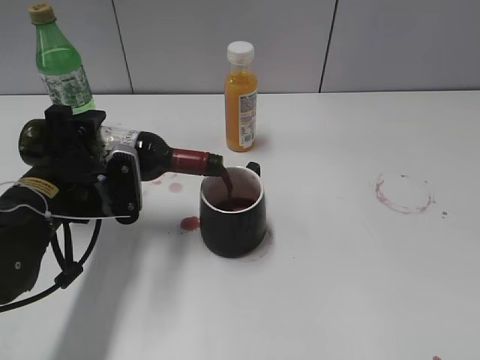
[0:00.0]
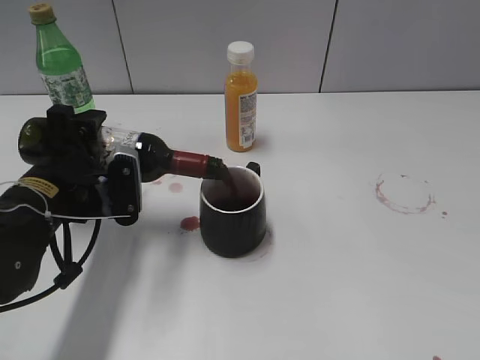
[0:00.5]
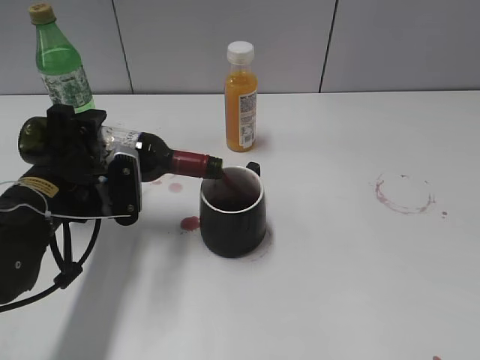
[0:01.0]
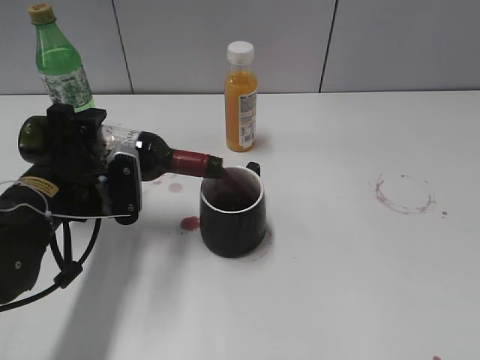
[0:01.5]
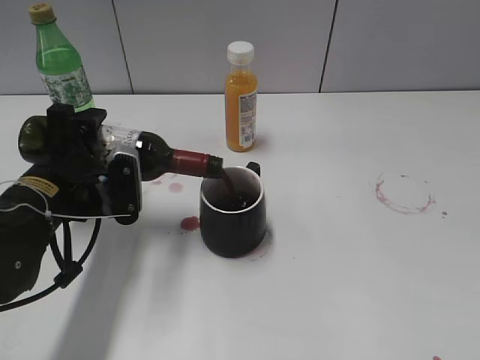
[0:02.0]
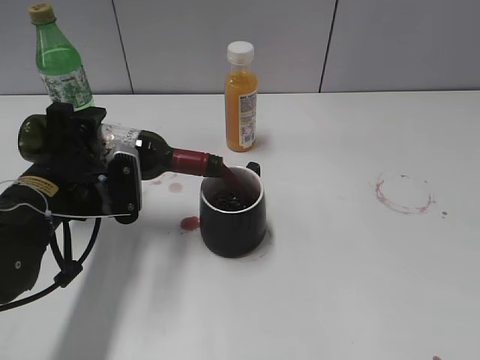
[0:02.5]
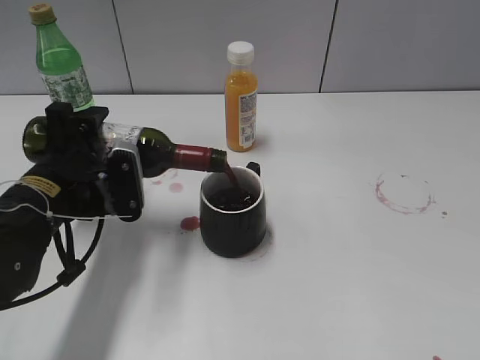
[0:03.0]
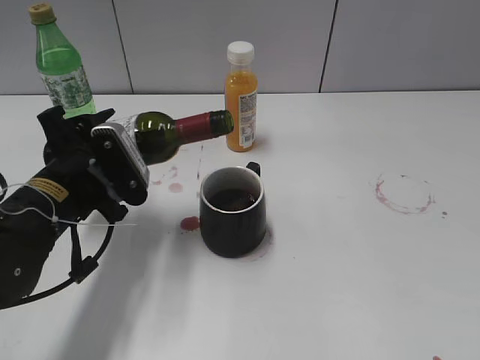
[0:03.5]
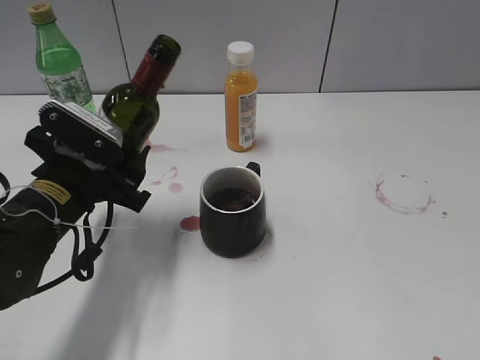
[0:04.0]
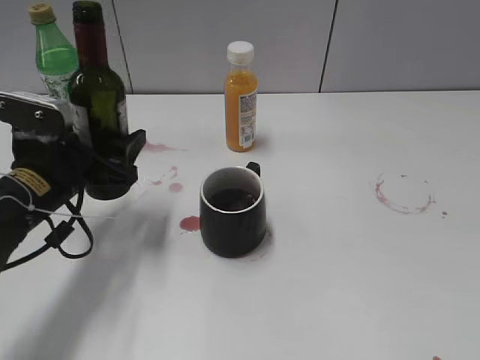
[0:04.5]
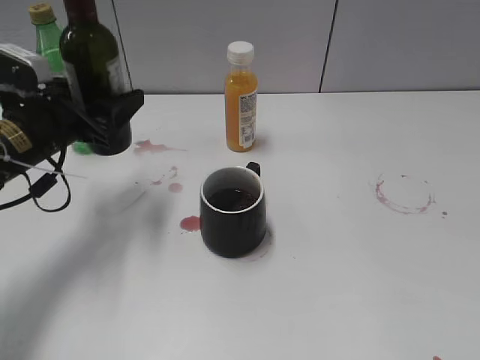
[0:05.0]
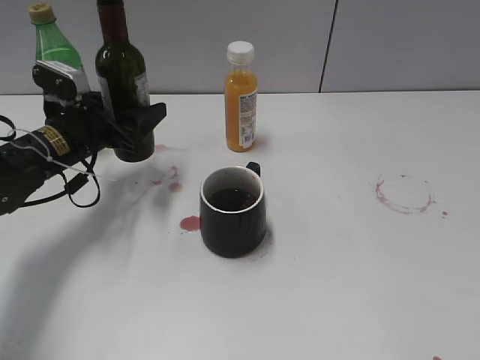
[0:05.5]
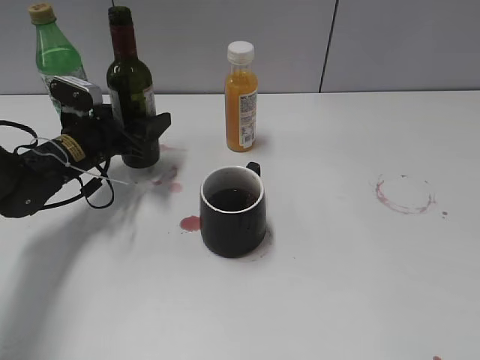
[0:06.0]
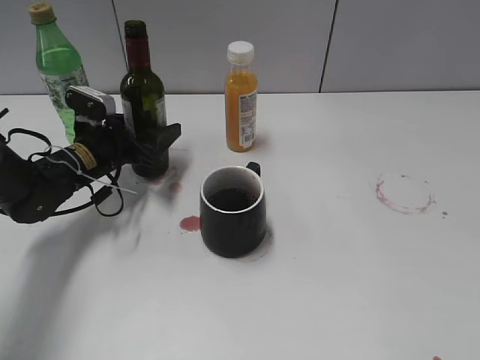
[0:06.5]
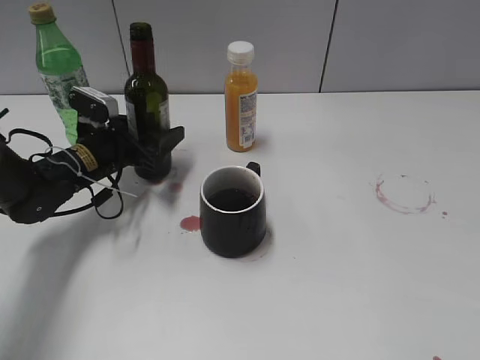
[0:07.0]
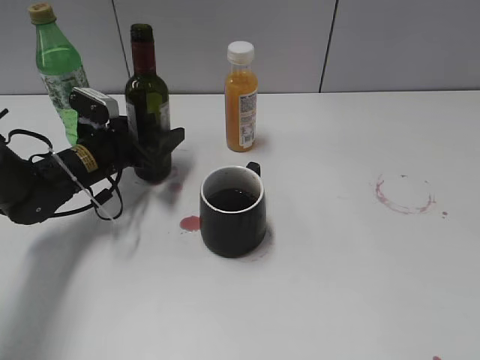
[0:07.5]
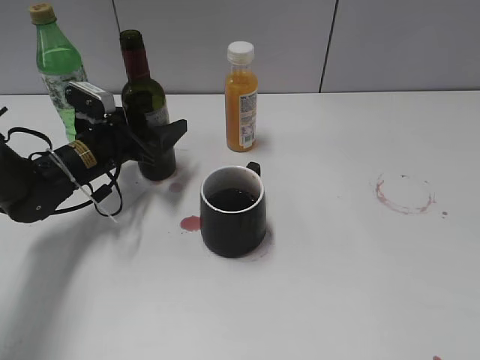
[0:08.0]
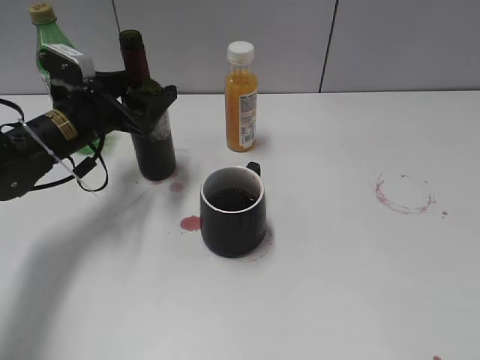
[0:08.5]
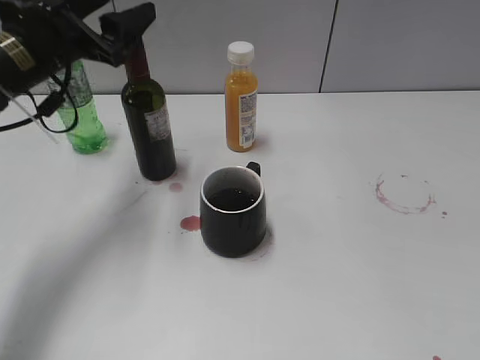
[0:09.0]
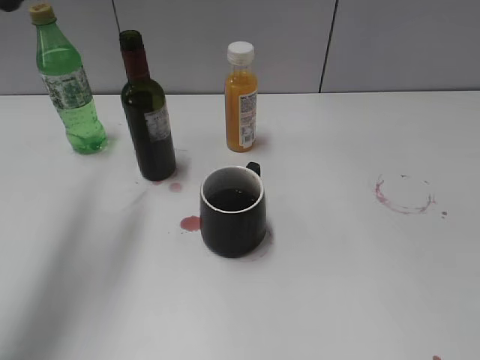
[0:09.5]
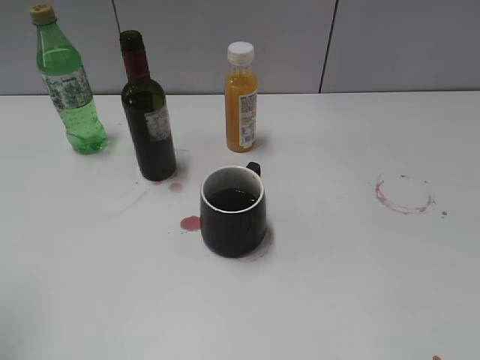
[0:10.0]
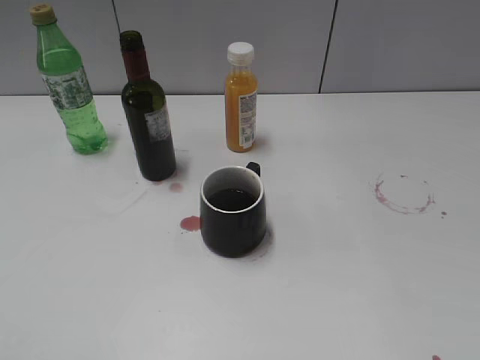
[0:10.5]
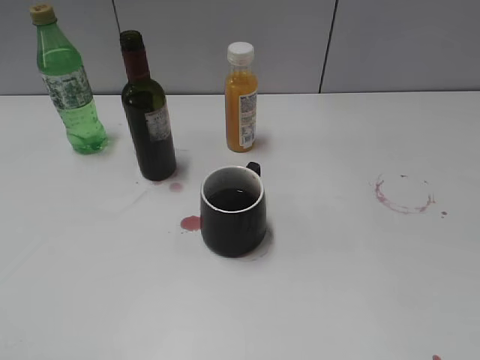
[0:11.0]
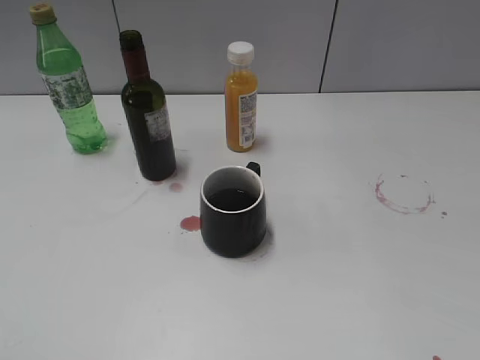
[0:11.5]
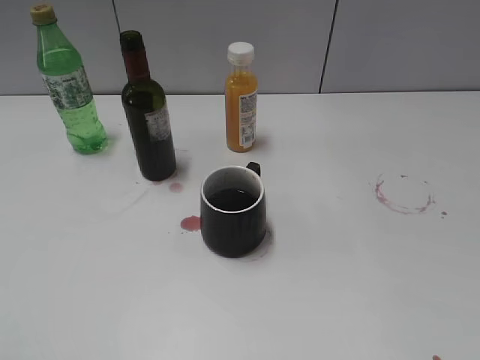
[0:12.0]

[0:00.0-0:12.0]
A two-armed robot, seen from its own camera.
Step, 0:00.0 to 0:03.5: Pour the red wine from bottle to cup with left gripper.
Step, 0:04.0 to 0:08.0: Place the red wine bottle on the table with left gripper.
0:00.0 to 0:02.0: The two grippers keep their place.
0:04.0 to 0:06.0: The left gripper heads forward, covering about 15 cm.
0:06.0 to 0:08.0: The left gripper opens up.
0:08.0 to 0:10.0: The left gripper travels upward and backward by some 35 cm, and closes up.
